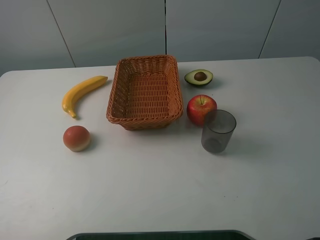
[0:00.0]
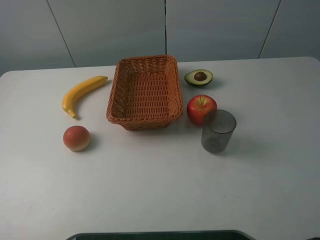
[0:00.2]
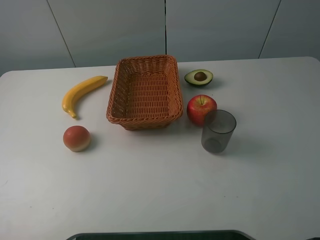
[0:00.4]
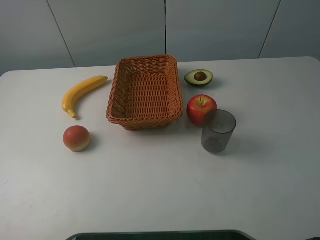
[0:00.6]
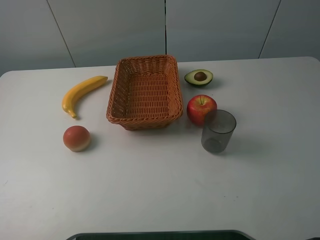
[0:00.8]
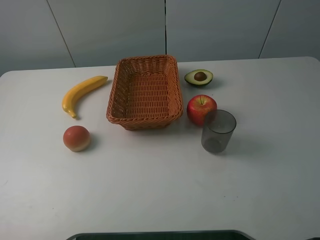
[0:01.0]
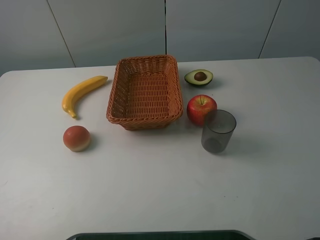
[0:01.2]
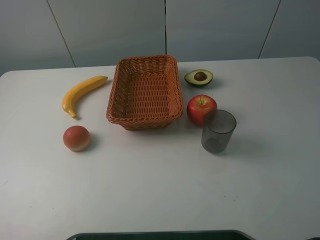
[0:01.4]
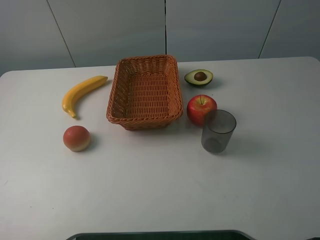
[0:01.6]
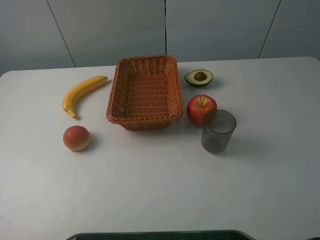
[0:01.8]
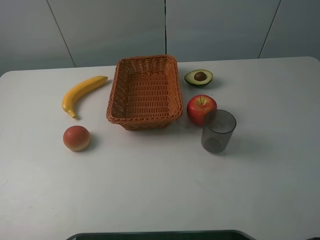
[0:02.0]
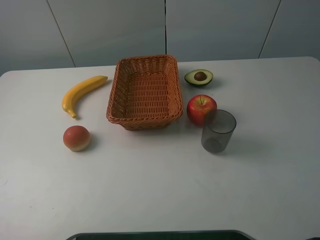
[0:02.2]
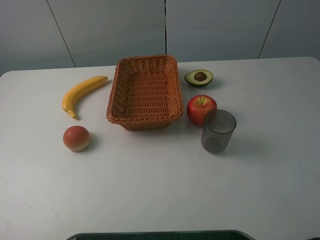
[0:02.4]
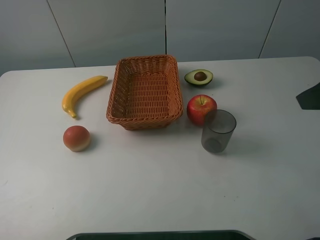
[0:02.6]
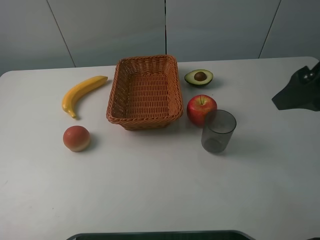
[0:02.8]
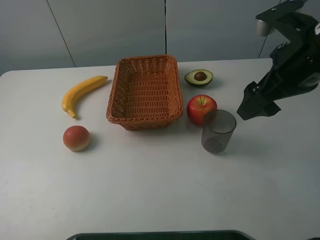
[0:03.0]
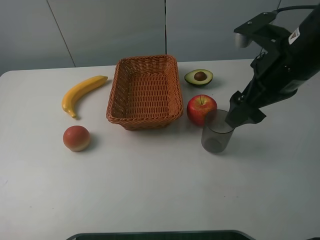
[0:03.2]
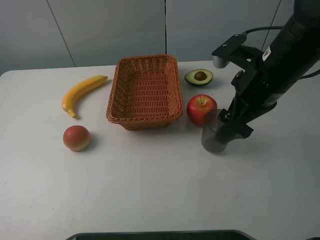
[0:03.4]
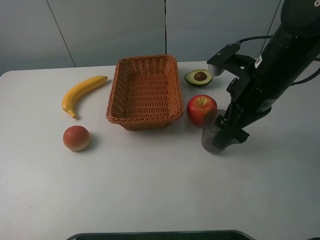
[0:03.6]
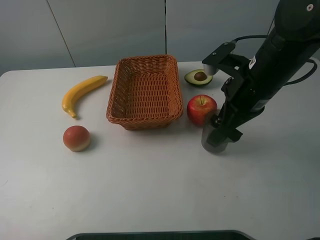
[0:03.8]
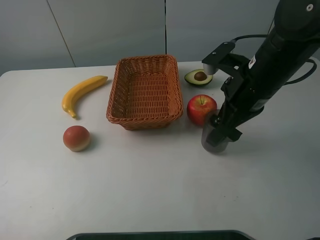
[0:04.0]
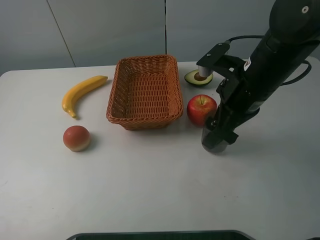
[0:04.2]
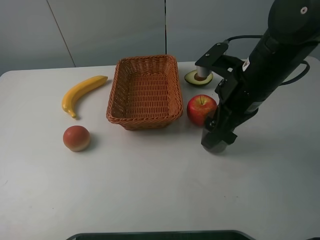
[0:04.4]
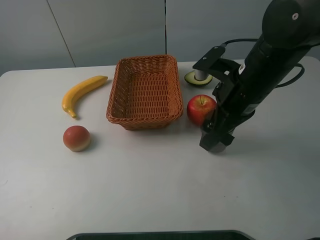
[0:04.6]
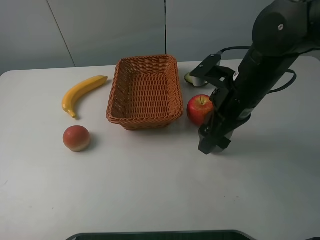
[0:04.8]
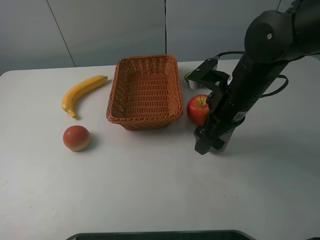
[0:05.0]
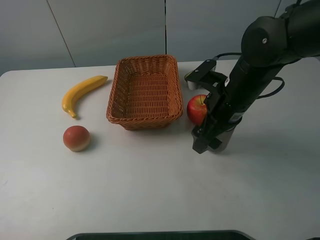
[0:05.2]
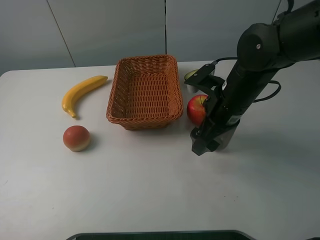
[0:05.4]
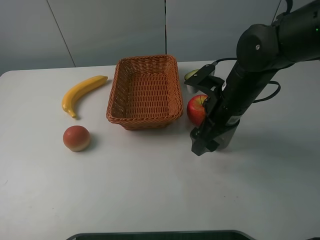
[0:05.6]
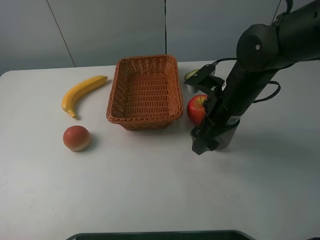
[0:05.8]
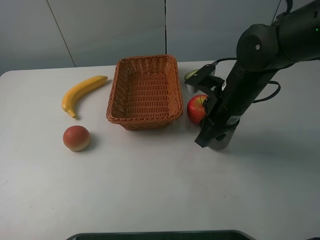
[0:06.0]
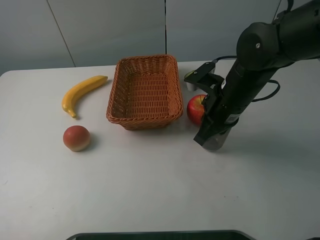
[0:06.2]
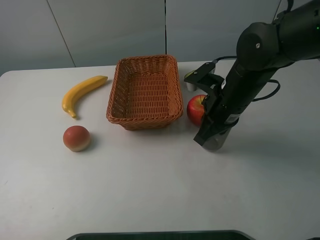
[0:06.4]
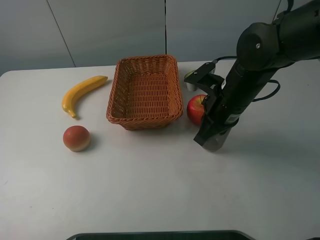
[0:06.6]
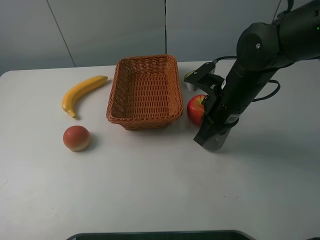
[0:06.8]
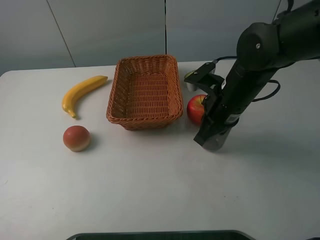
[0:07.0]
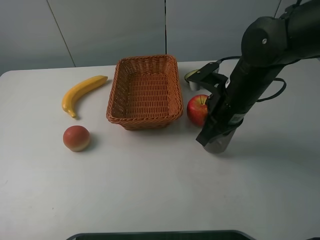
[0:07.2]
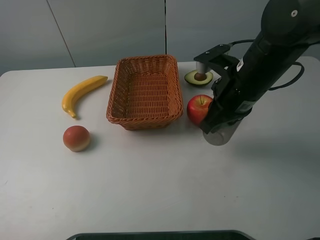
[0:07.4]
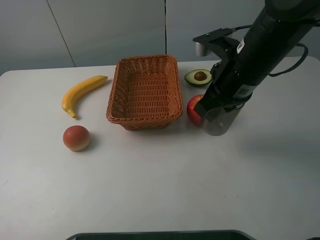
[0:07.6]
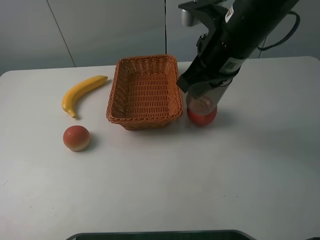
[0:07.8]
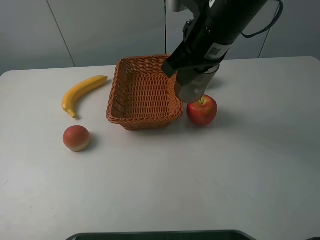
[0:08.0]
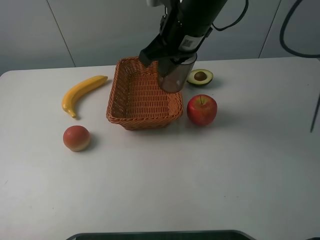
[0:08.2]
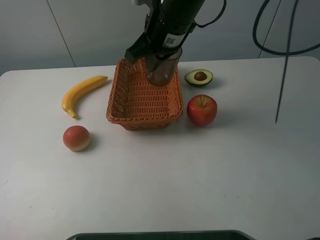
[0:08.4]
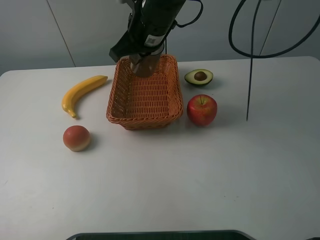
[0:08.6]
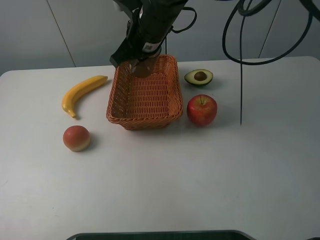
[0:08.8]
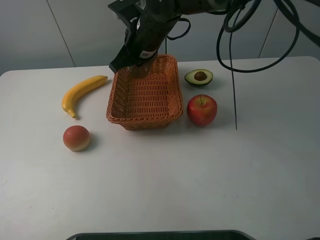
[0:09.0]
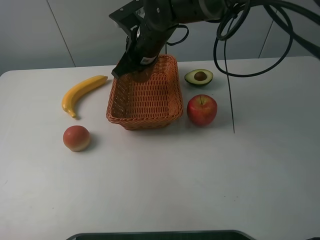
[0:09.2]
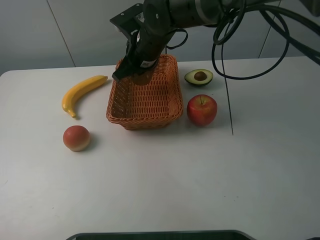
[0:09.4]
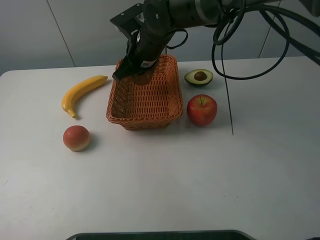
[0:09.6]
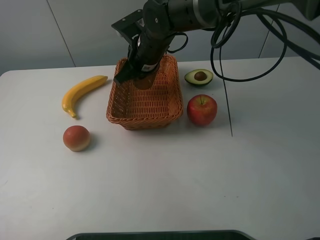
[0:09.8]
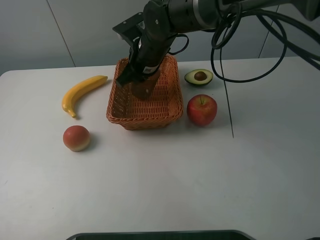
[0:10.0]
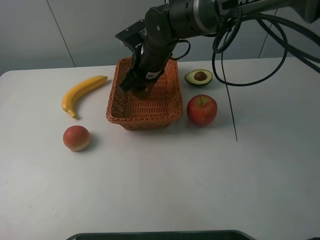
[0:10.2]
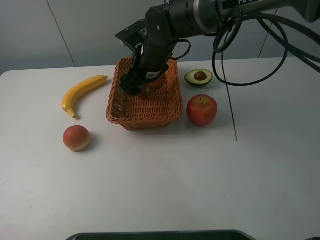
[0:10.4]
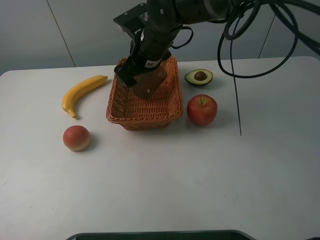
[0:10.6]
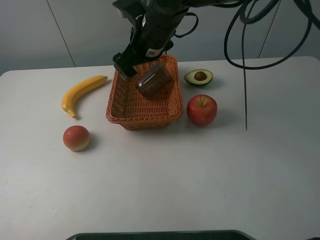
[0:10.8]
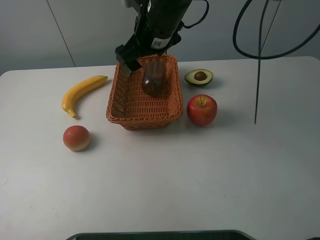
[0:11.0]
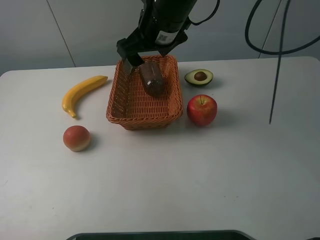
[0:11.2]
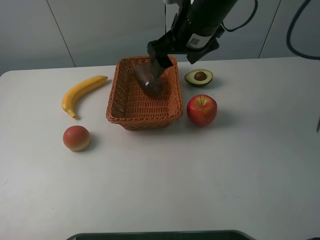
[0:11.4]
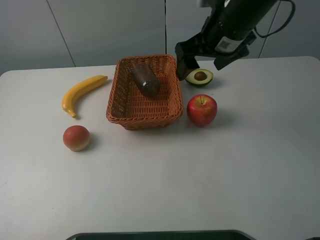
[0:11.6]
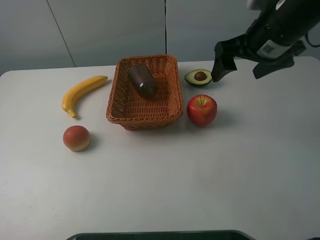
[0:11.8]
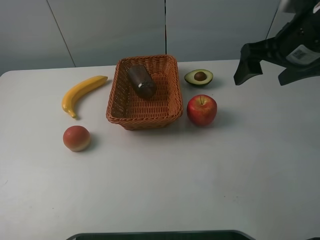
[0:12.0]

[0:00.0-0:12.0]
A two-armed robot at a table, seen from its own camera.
0:00.0 to 0:01.6: Both grippers stay about where they are.
0:01.6 to 0:03.0: The right gripper heads forward and to the left, covering roughly 25 cm.
0:03.0 to 0:04.4: The right gripper travels to the left and downward by roughly 10 cm.
0:04.4 to 0:06.0: The right gripper moves downward, approximately 5 cm, and closes.
0:06.0 to 0:07.6: The right gripper travels upward by approximately 10 cm.
0:07.6 to 0:09.0: The right gripper shifts roughly 20 cm to the left and forward.
0:09.0 to 0:10.4: The right gripper opens up.
0:10.4 to 0:12.0: The right gripper heads to the right, backward and upward, covering approximately 30 cm.

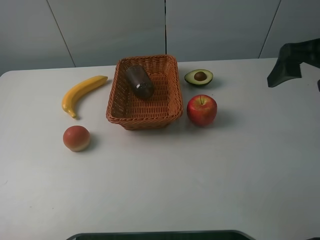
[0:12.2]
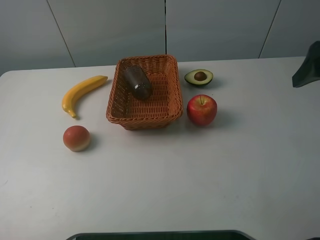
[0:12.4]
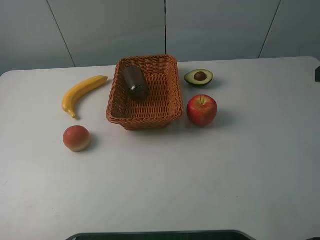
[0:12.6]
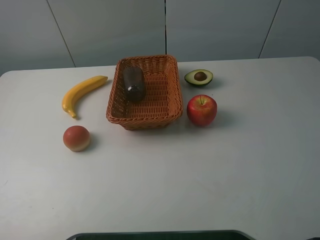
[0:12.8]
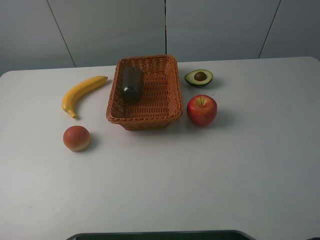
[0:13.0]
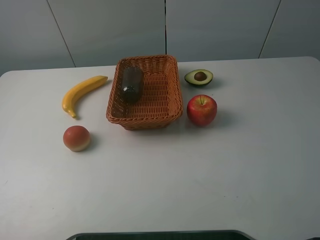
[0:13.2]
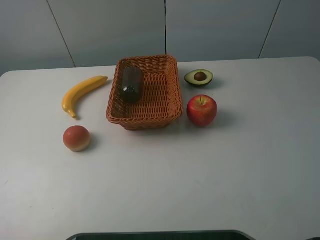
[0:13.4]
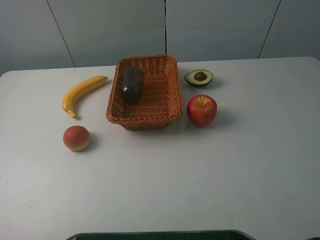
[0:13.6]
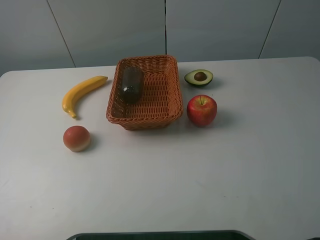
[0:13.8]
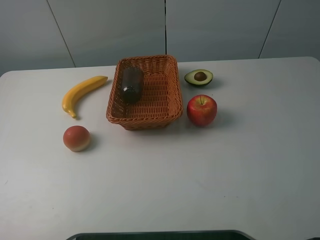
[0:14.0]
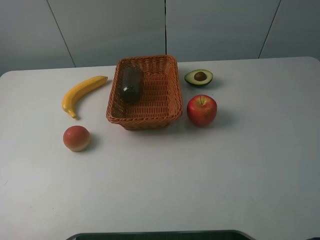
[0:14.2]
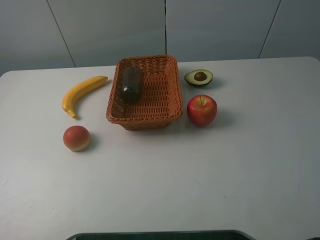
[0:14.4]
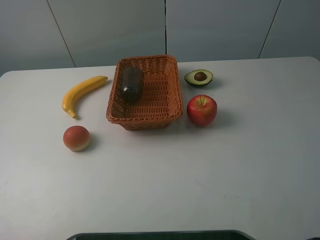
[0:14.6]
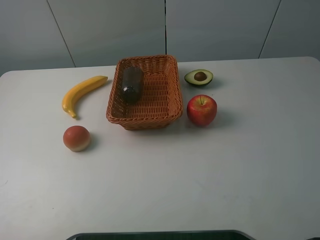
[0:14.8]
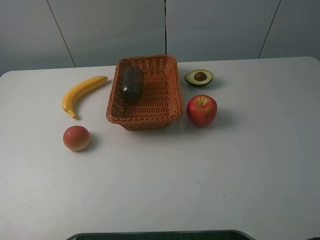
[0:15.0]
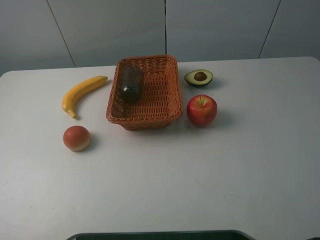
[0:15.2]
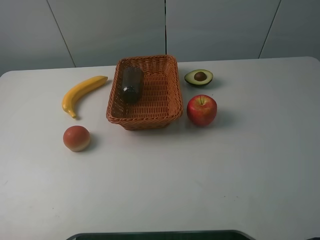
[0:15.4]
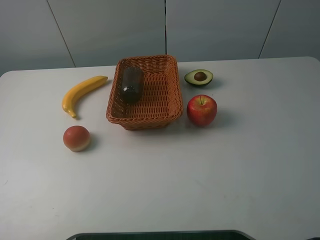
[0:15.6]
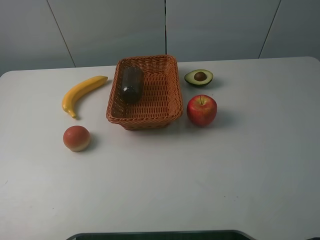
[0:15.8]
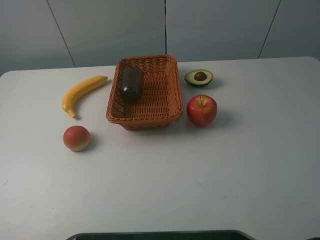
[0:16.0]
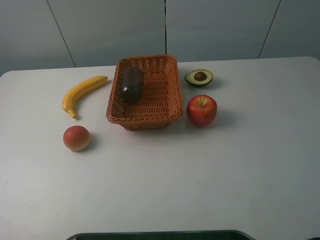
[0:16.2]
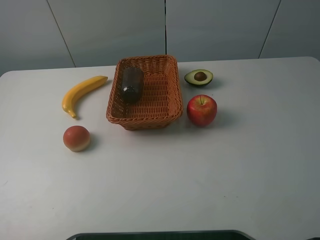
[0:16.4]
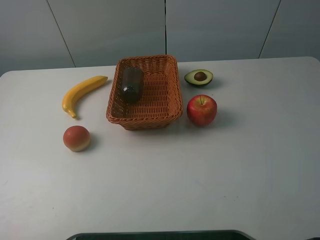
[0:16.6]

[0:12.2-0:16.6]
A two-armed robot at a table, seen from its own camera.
0:12.2 to 0:13.6: The right gripper heads backward, covering about 20 cm.
